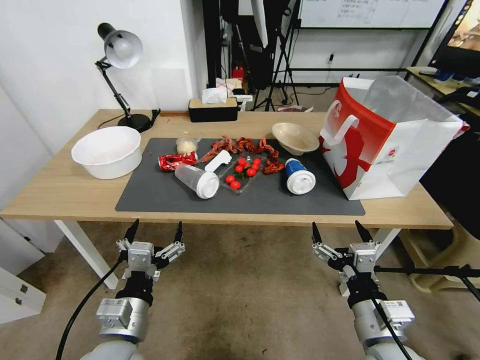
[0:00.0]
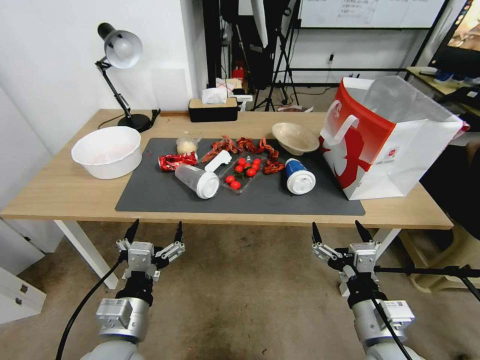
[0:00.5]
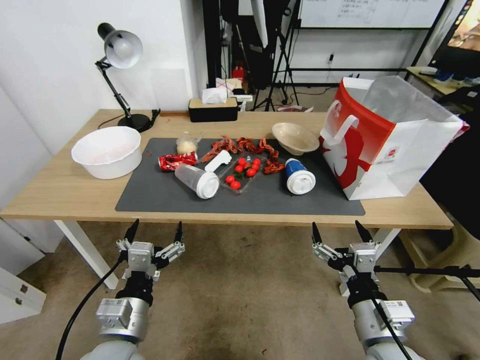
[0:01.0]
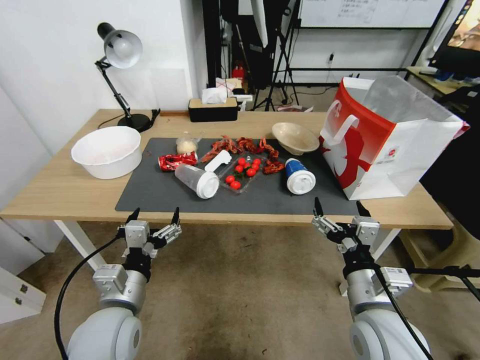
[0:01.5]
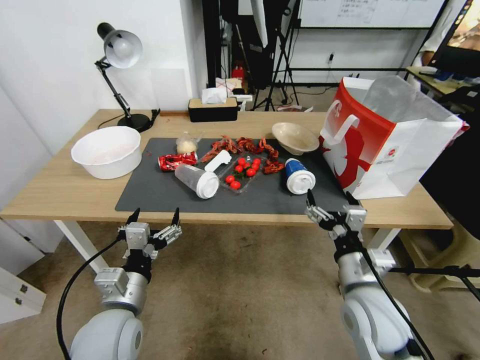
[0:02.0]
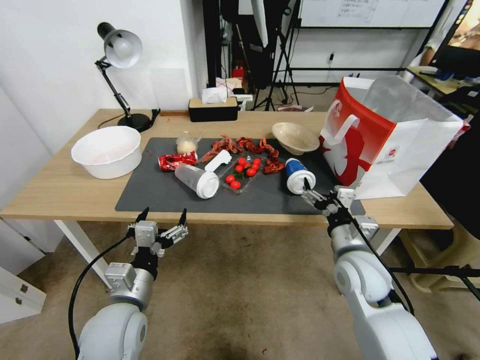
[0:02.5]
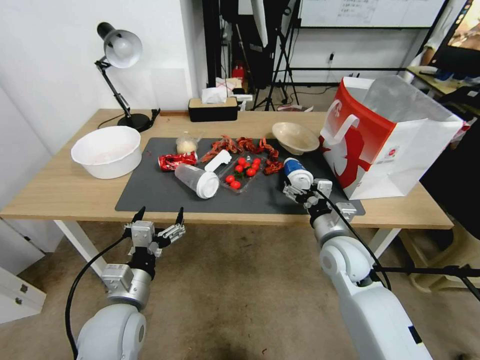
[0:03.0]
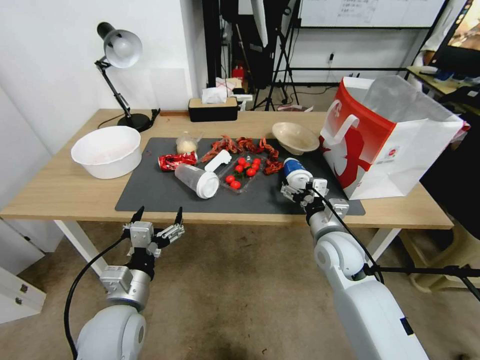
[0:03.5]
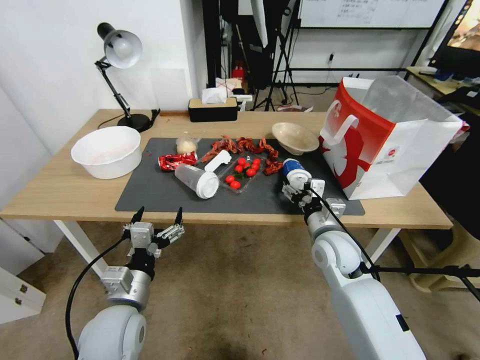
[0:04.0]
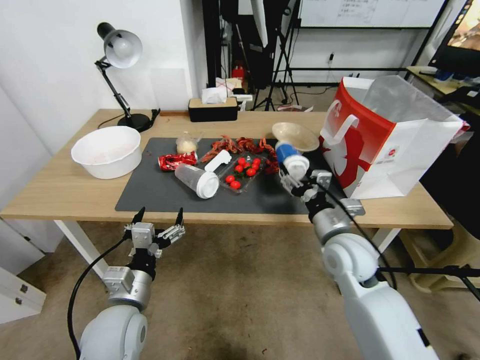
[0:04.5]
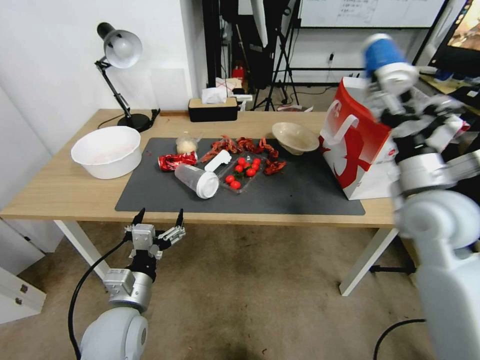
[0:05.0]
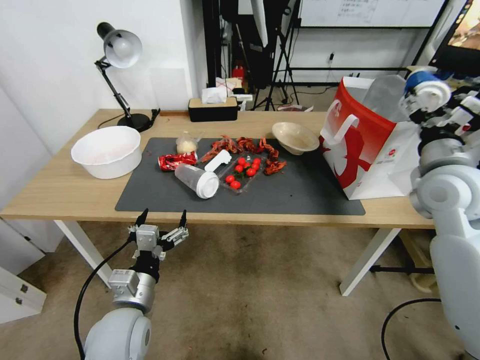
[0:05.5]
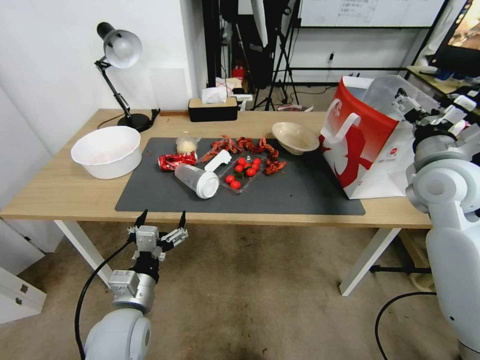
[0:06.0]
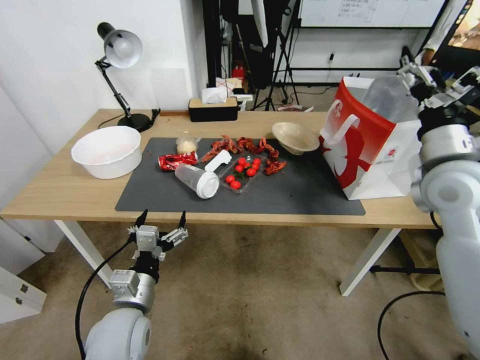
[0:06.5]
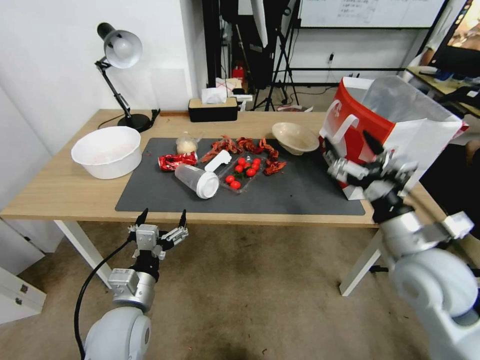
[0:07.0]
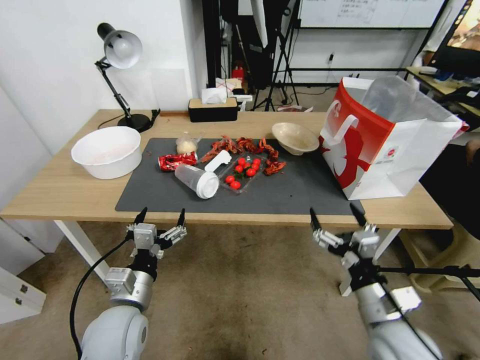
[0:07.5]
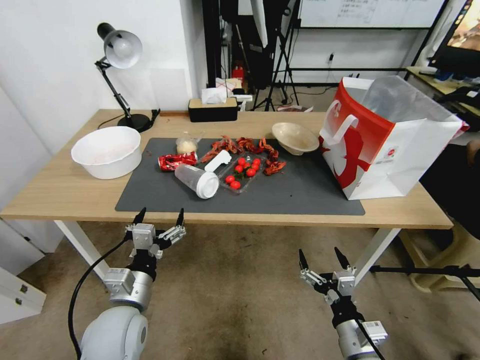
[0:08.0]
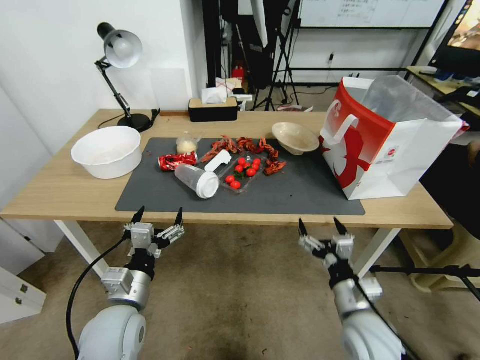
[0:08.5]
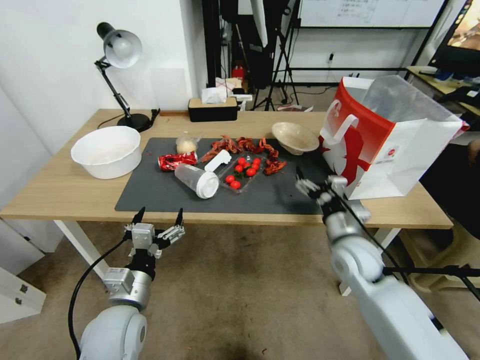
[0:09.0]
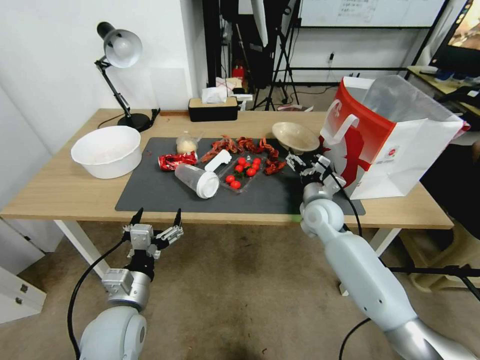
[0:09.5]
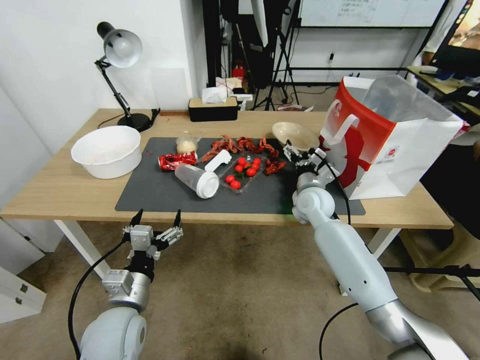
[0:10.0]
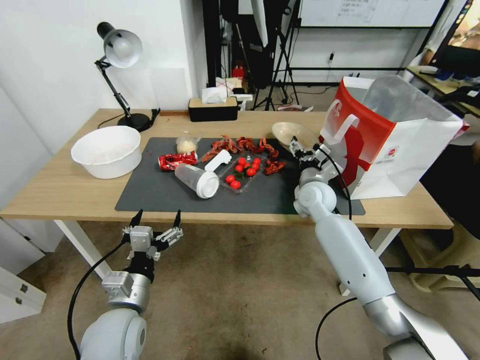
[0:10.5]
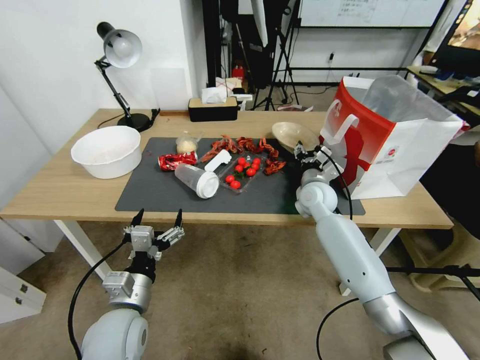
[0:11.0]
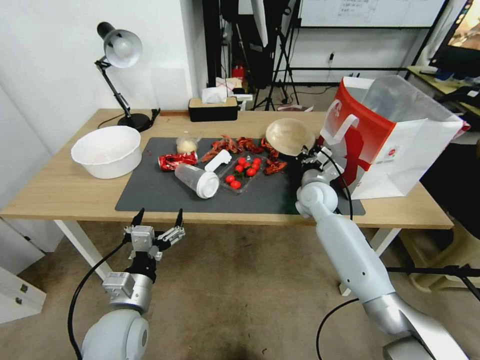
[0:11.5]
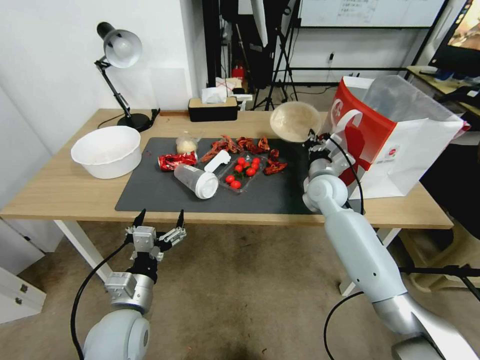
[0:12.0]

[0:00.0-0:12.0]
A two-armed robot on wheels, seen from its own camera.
0:02.0 to 0:04.0: The right gripper shifts about 15 cm forward.
0:04.0 to 0:06.0: The right gripper is displaced upward and to the right by approximately 25 cm.
0:06.0 to 0:08.0: The right gripper is displaced downward and backward by roughly 40 cm.
0:08.0 to 0:10.0: The right gripper goes roughly 35 cm forward.
0:10.0 to 0:12.0: The right gripper closes up.

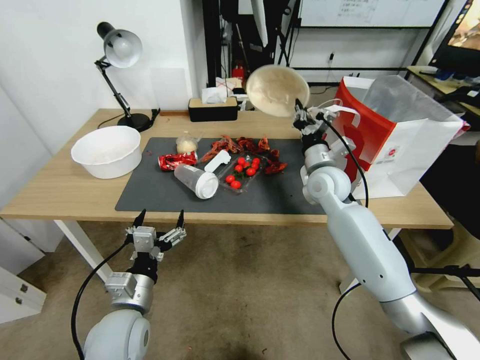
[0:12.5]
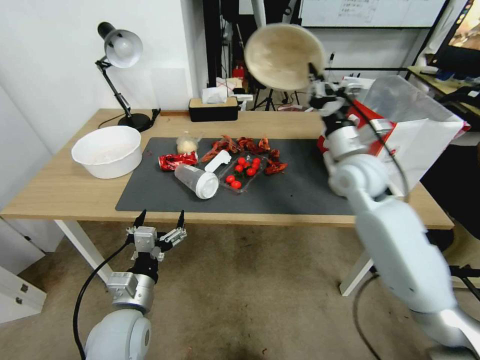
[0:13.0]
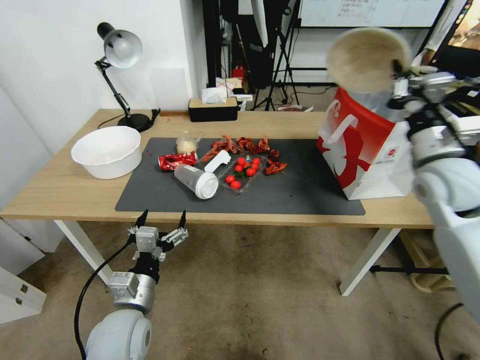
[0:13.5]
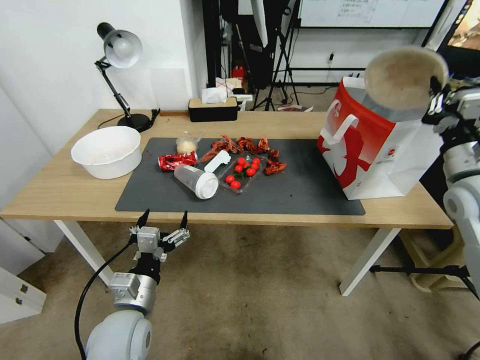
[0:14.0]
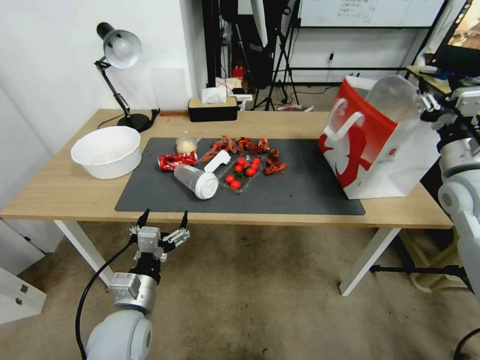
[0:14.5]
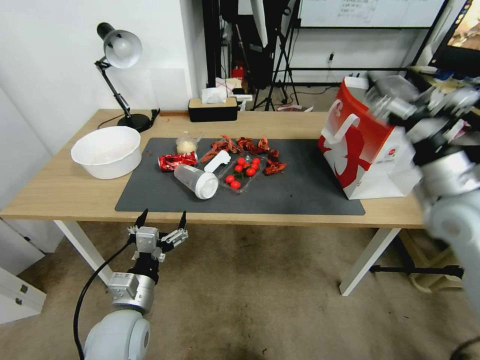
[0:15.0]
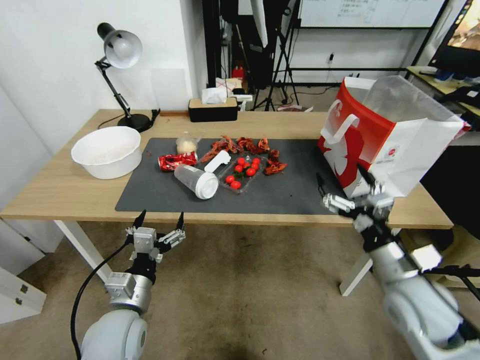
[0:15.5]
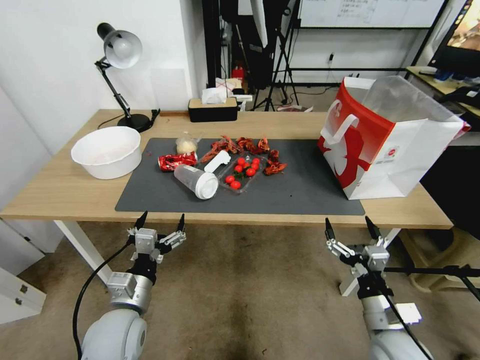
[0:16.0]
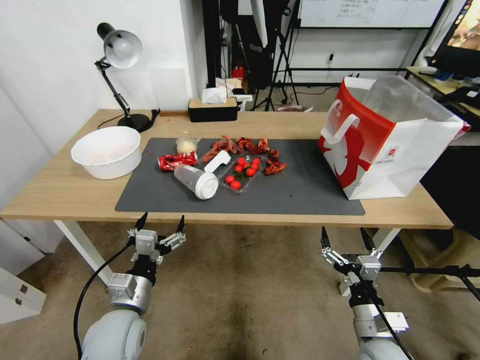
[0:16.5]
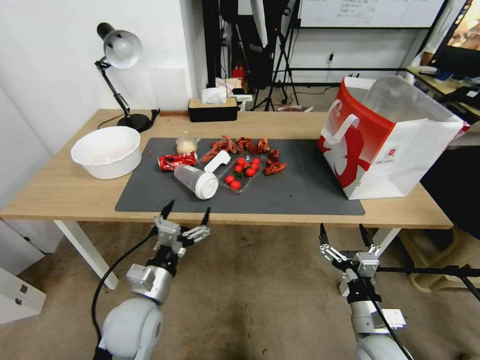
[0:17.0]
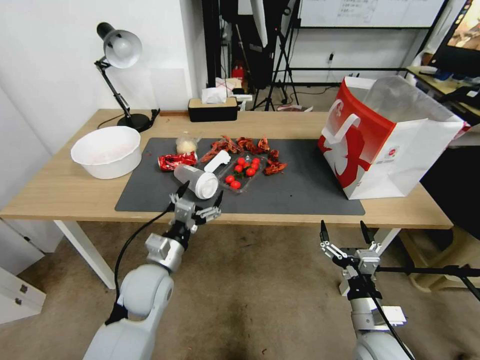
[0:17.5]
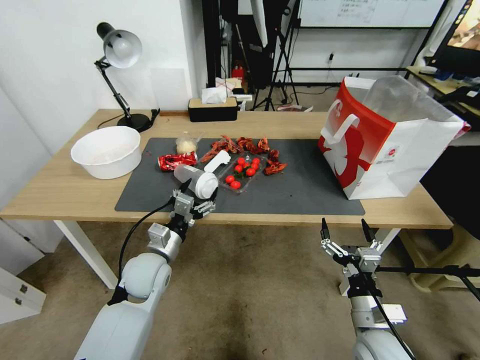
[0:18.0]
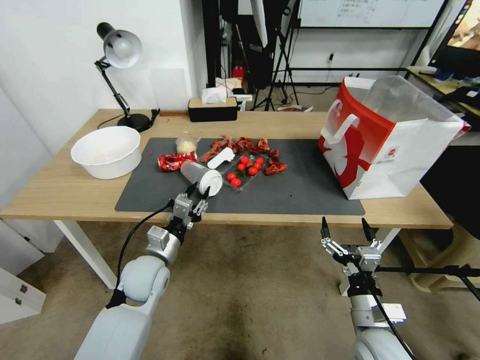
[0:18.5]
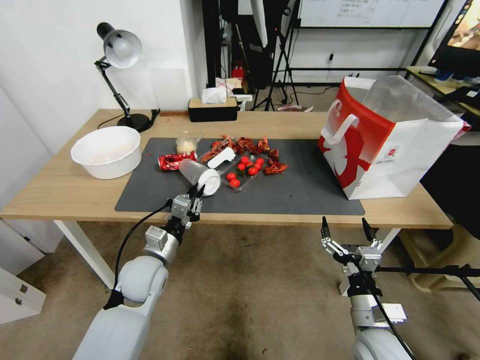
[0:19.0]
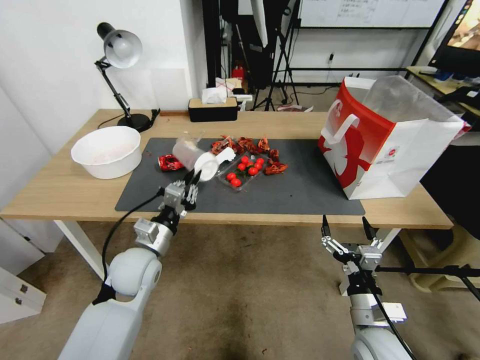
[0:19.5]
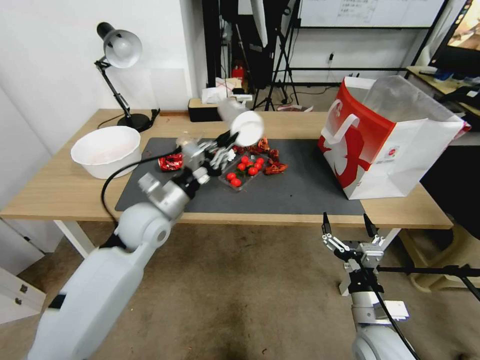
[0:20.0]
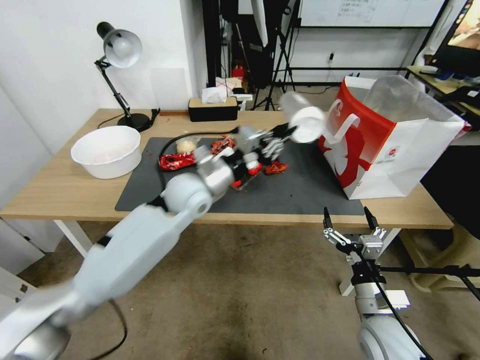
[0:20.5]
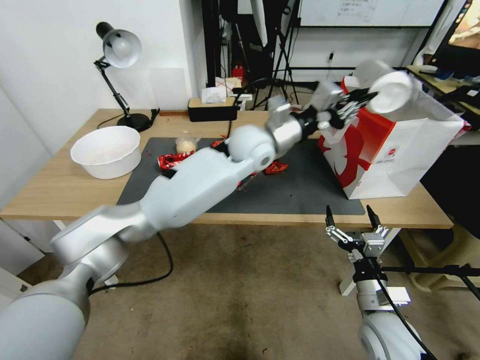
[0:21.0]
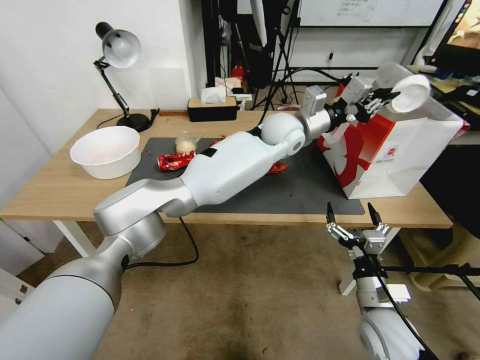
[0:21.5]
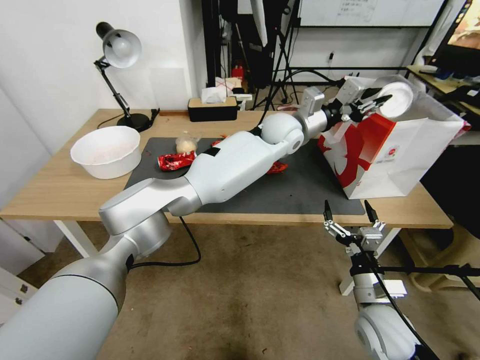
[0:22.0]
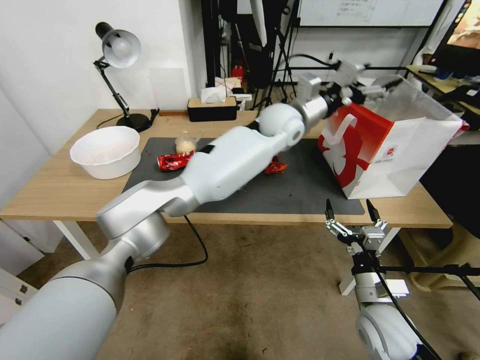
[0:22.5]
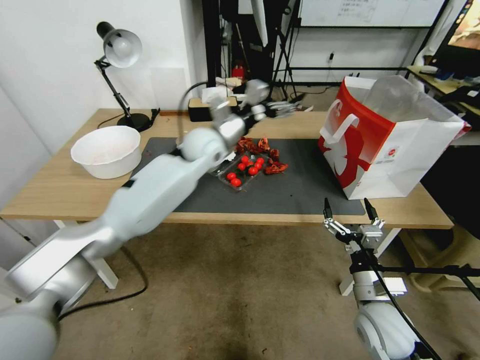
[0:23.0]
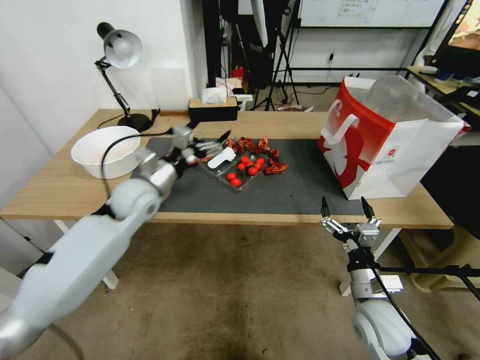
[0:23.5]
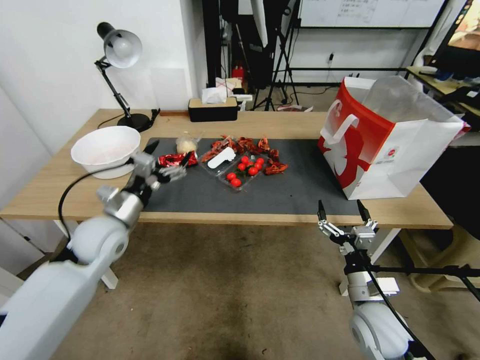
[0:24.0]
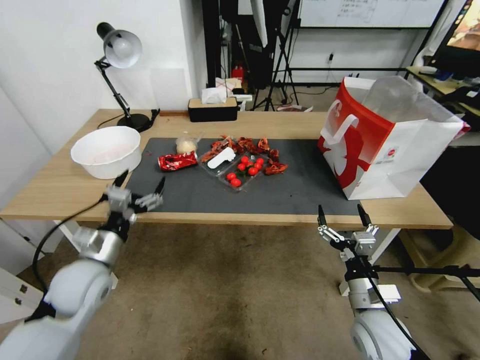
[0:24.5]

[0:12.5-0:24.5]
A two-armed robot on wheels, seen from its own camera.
0:12.5 to 0:14.5: The right gripper shifts roughly 25 cm to the right, backward and upward, and opens.
0:14.5 to 0:16.5: The right gripper is displaced downward, backward and to the left by roughly 35 cm, and opens.
0:16.5 to 0:18.5: The left gripper travels forward by roughly 10 cm, and closes its fingers.
0:18.5 to 0:20.5: The left gripper heads upward, forward and to the right, covering some 20 cm.
0:20.5 to 0:22.5: The left gripper moves to the right, forward and upward, approximately 30 cm, and opens up.
0:22.5 to 0:24.5: The left gripper shifts some 50 cm to the left, backward and downward.

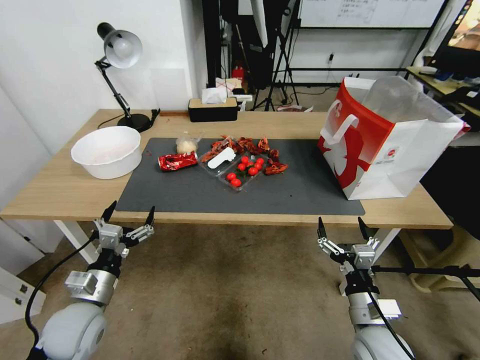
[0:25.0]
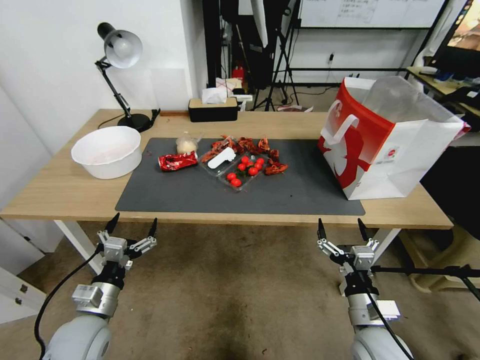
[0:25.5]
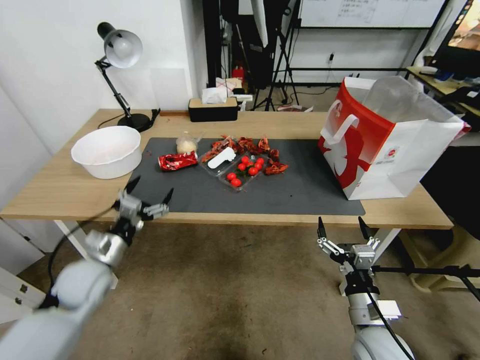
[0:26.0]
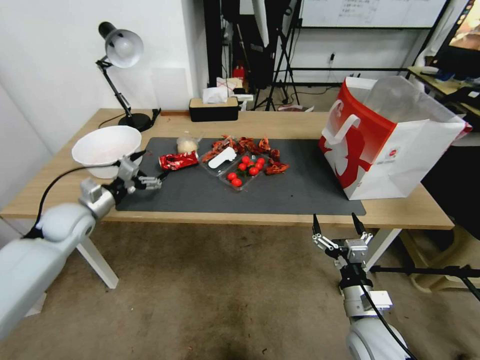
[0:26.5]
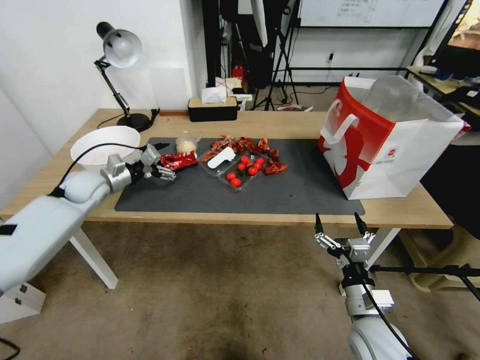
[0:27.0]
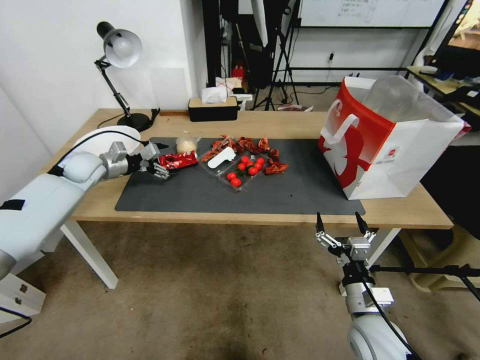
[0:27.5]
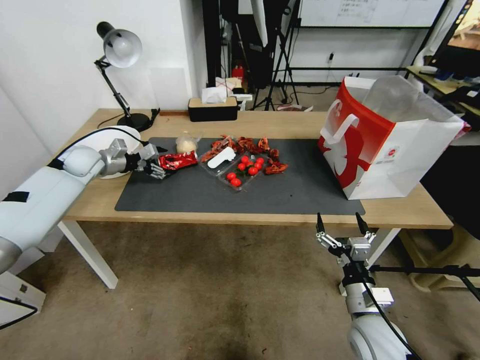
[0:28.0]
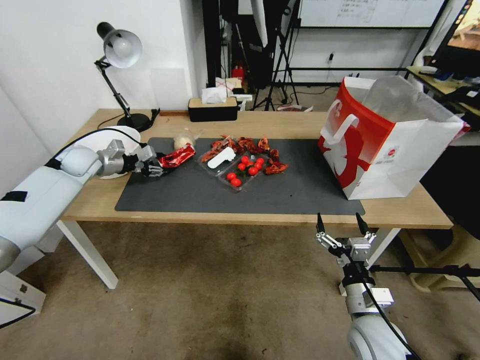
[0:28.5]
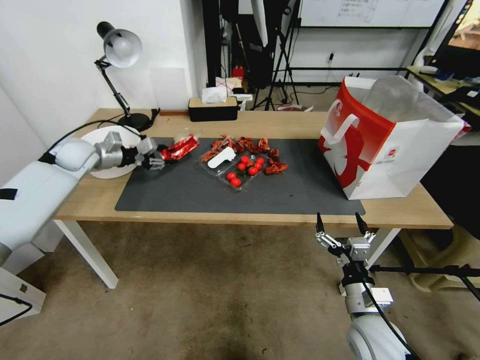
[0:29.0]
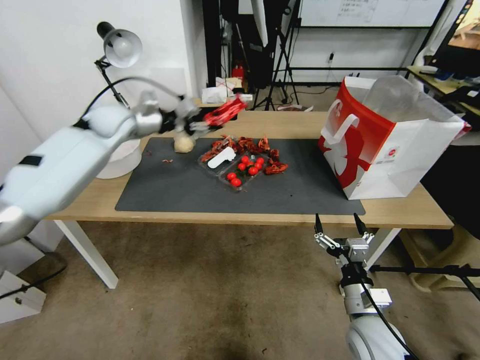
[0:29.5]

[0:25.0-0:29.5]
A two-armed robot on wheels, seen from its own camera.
0:25.0 to 0:27.0: The left gripper moves forward, approximately 30 cm.
0:27.0 to 0:29.5: The left gripper heads upward, to the right and forward, covering some 20 cm, and closes.
